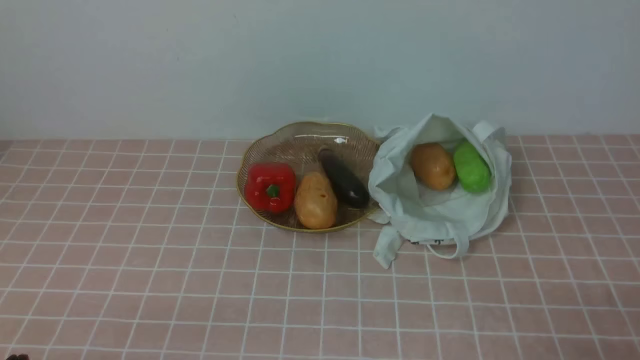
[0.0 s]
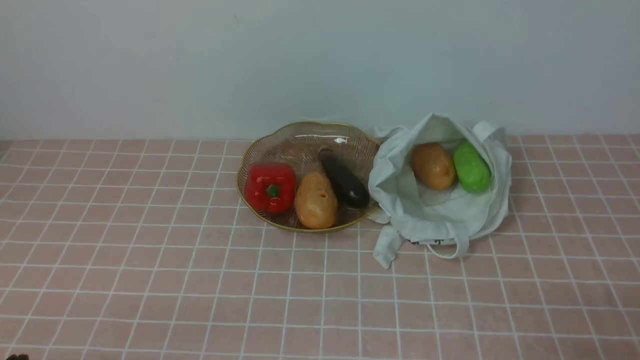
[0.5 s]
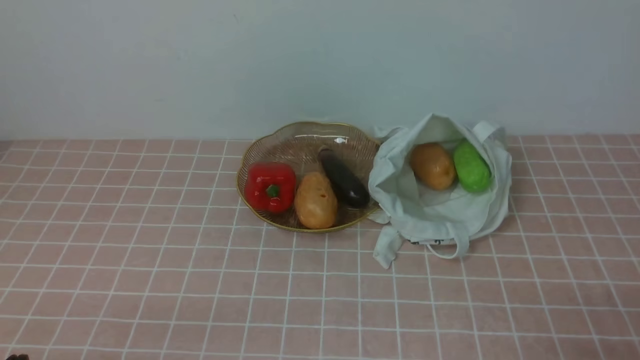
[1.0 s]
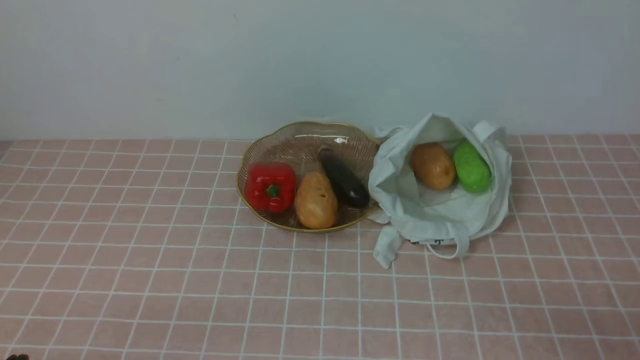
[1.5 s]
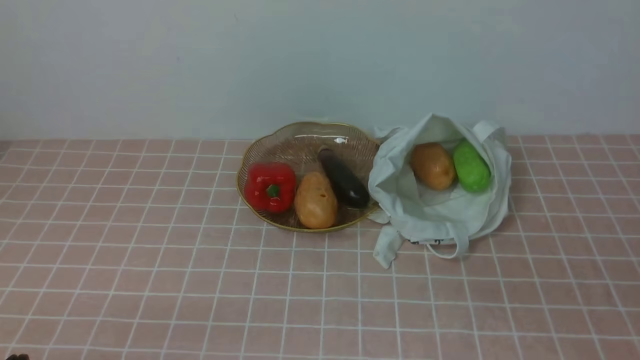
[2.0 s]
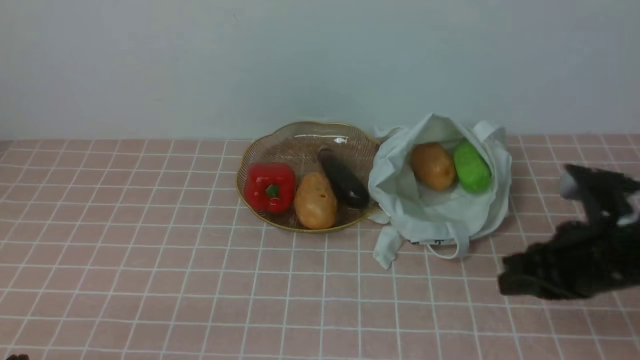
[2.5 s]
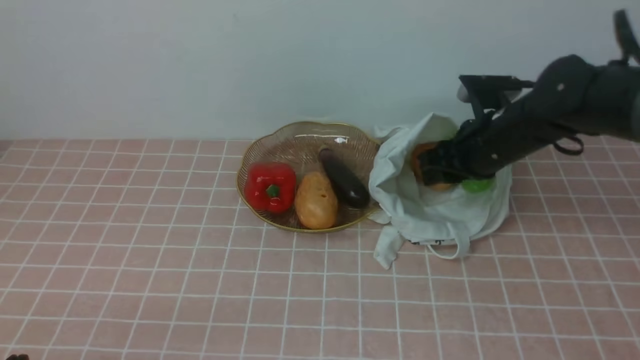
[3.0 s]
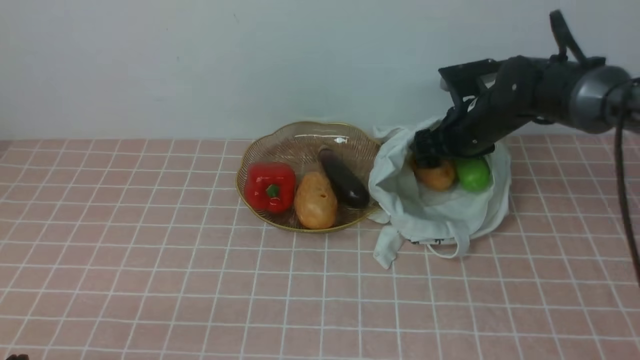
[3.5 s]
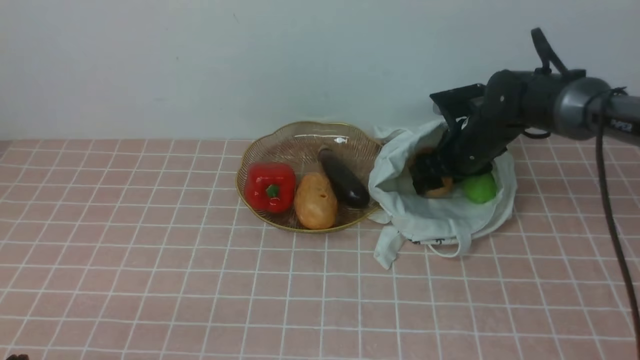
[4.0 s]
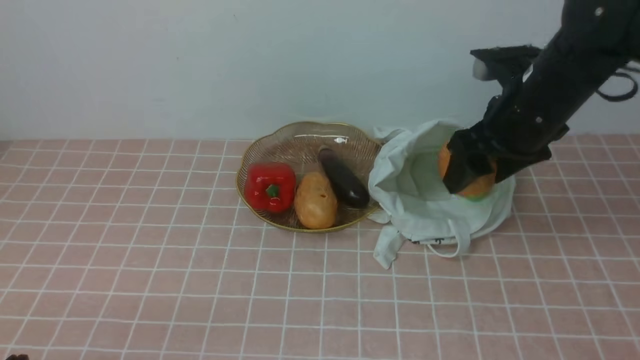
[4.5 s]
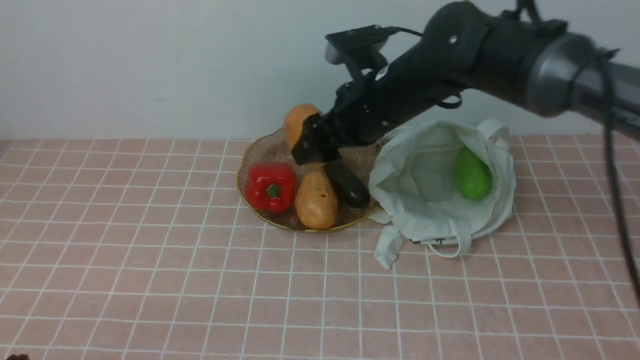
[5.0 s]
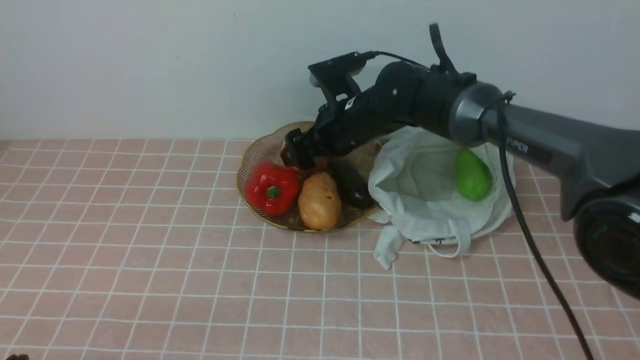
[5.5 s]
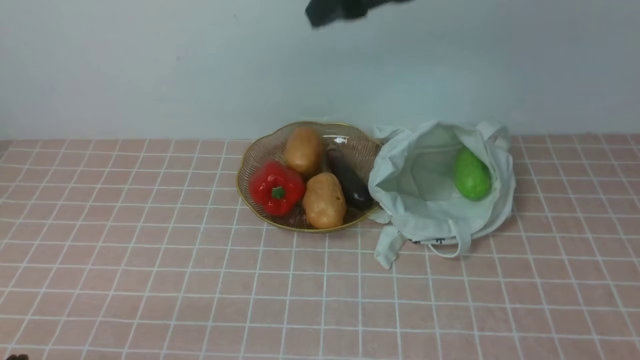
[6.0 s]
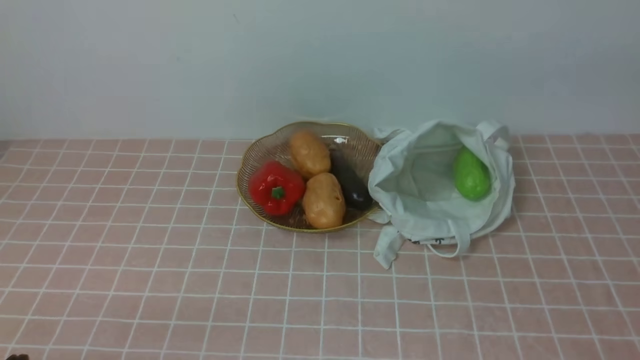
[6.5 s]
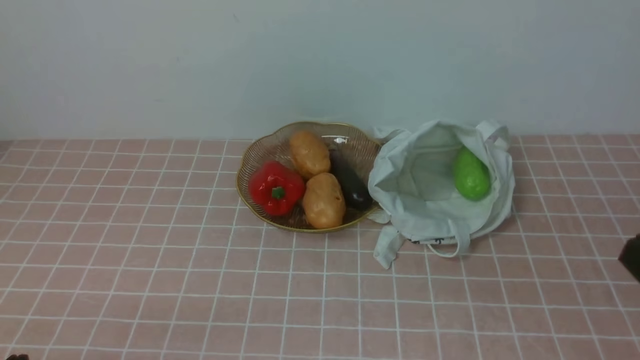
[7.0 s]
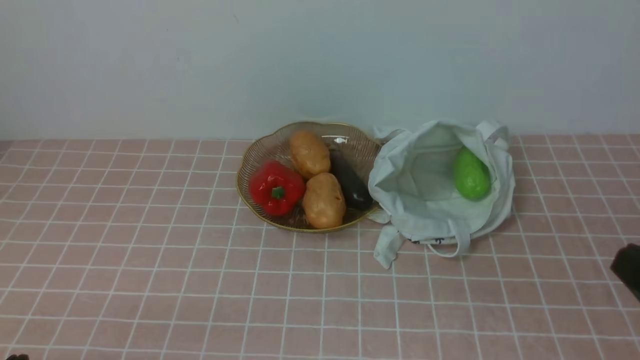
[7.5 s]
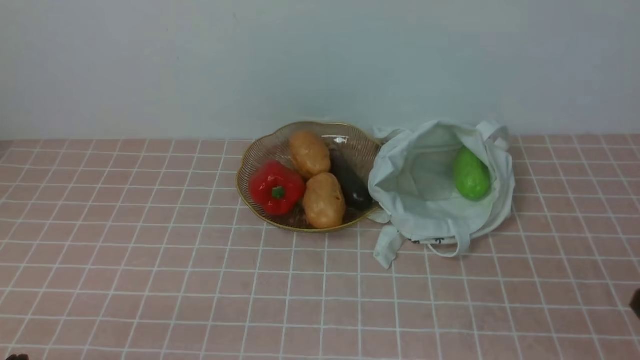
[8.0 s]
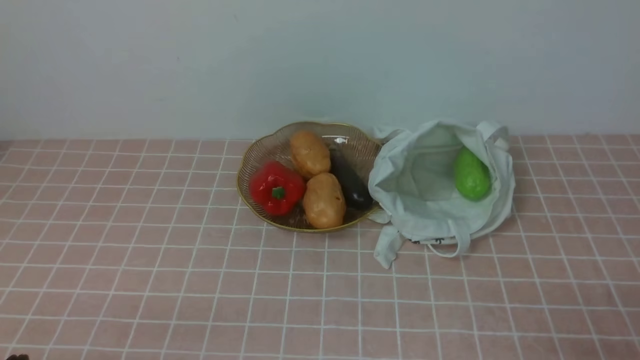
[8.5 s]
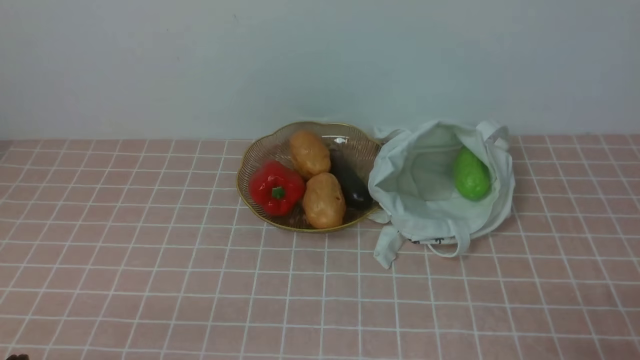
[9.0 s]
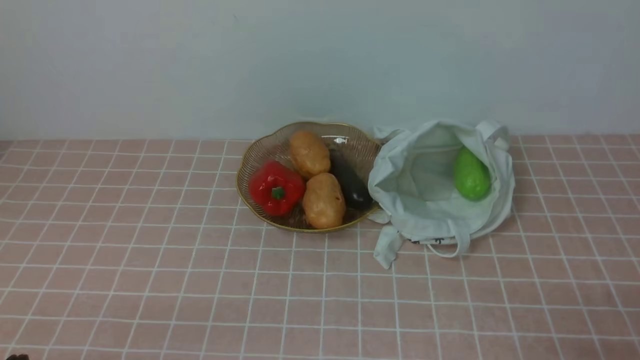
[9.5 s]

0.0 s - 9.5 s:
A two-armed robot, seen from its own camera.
Task of the whole recording: take vegetables from bag on pink coffee tablecloth place on plate.
Step, 0.0 s - 3.5 s: Grasp the potato with right gripper.
Step, 4.0 s - 5.5 s: Place the potato on the plate with right gripper.
2.0 s - 4.0 s: The right gripper moves forward, some 35 cm, and opens.
4.0 s - 5.5 s: The right gripper shifts roughly 15 cm to the left.
5.5 s - 7.5 s: The right gripper shifts roughly 40 cm backward and to the right, and closes.
